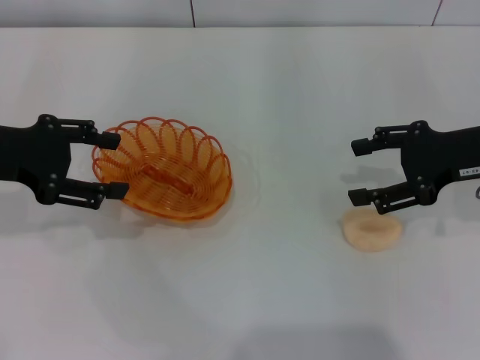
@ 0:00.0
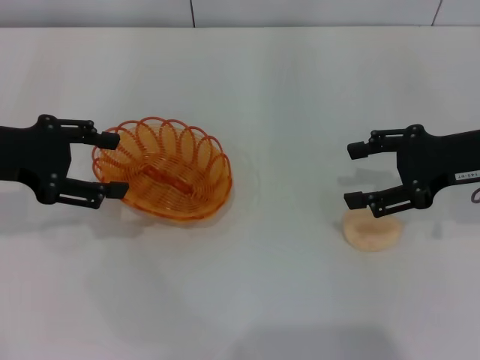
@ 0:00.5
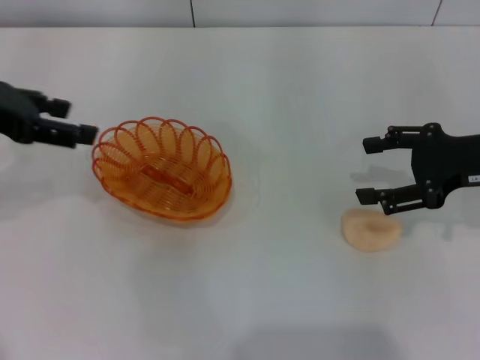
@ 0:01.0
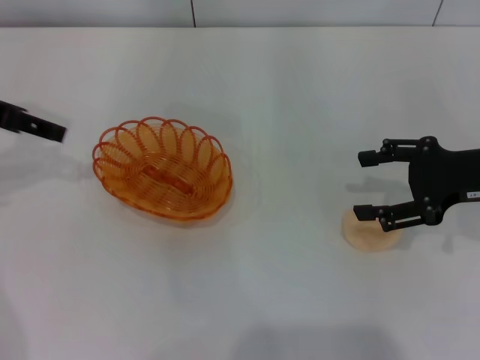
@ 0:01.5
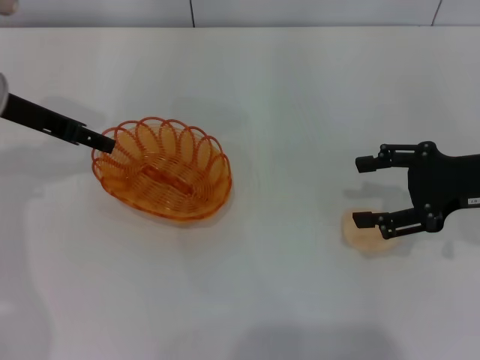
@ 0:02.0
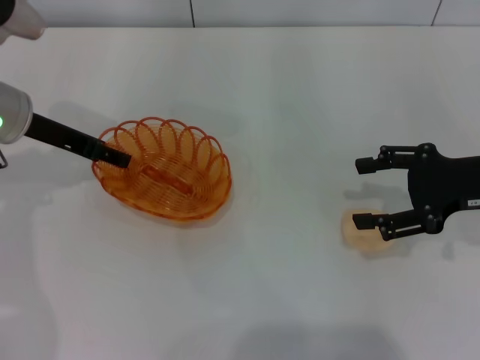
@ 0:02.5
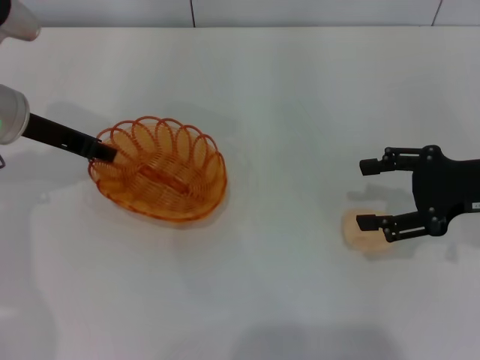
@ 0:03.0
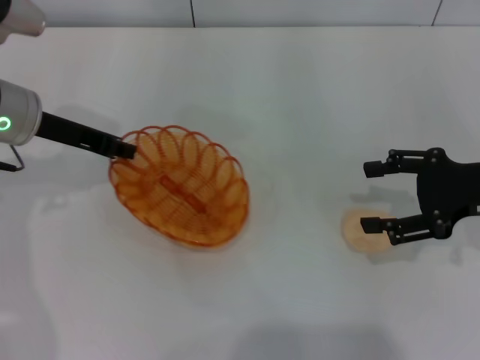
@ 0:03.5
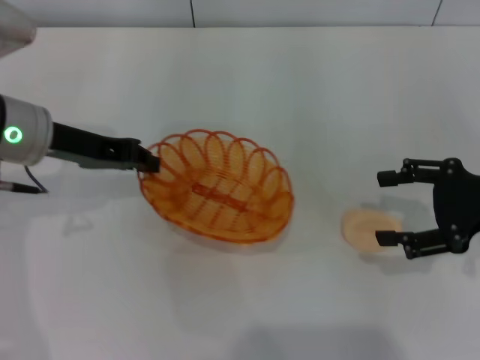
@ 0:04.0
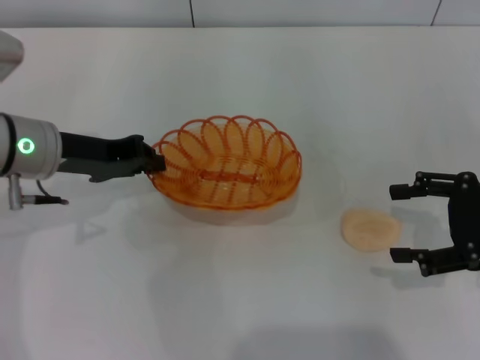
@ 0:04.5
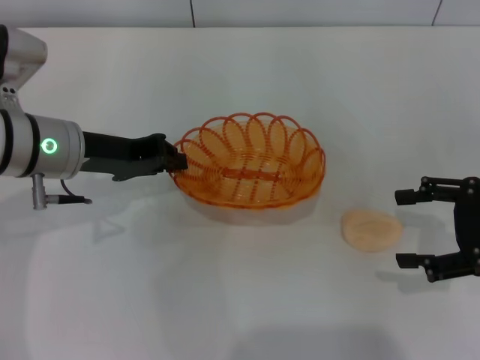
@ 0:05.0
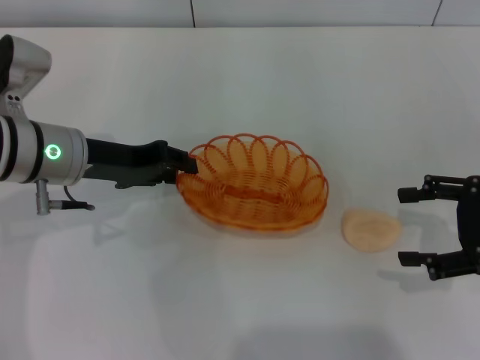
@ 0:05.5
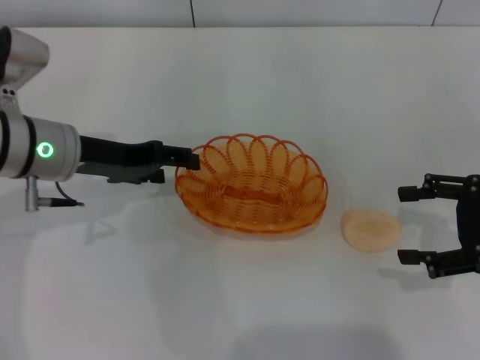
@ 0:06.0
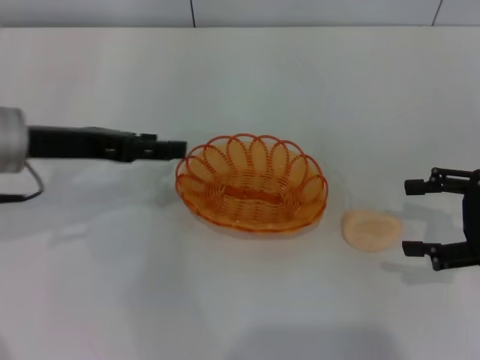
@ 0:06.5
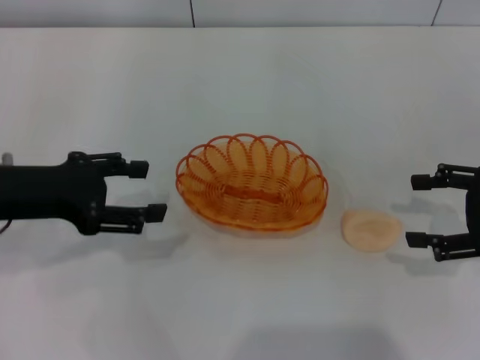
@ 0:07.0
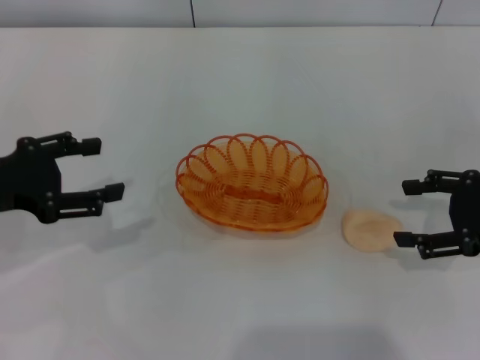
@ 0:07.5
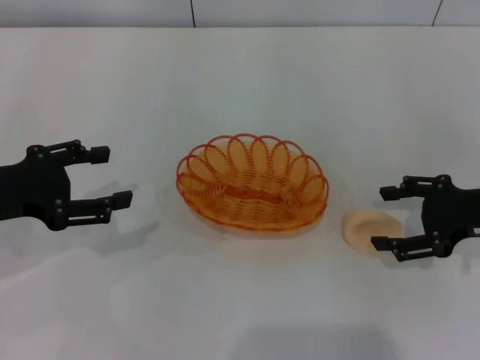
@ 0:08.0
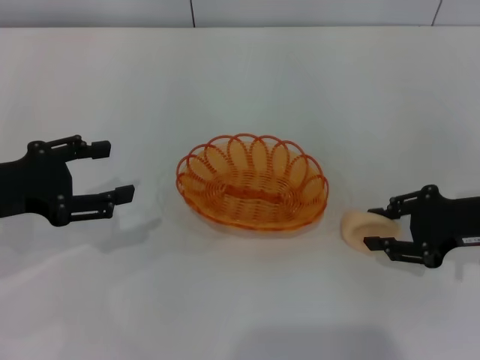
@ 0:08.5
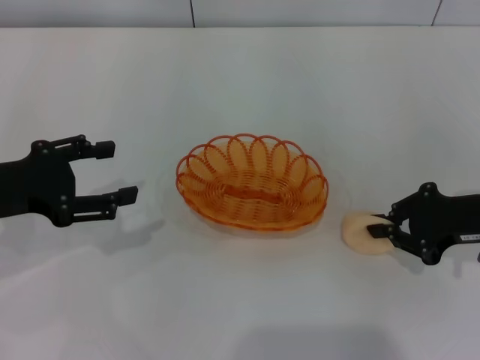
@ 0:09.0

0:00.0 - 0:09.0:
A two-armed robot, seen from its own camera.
Step, 0:00.0 - 0:04.0: Pick up the basket with the left gripper.
Step, 0:04.5 - 0:06.0: Place the basket in the center of view with the left gripper.
0:00.0 - 0:02.0: The left gripper travels forward by roughly 5 cm.
0:02.0 - 0:04.5: The left gripper shifts by roughly 5 cm, and closes, while the right gripper shifts by roughly 5 cm.
0:04.5 - 0:07.0: The left gripper shifts about 5 cm backward, and opens up.
0:07.0 - 0:09.0: The right gripper shifts by some 5 cm, and closes.

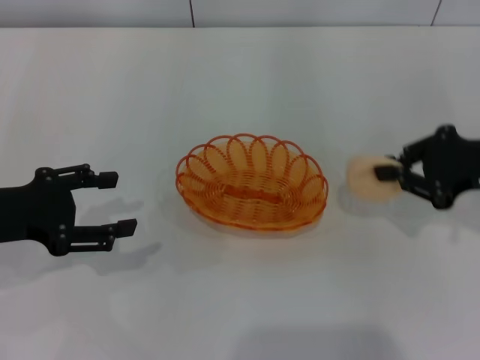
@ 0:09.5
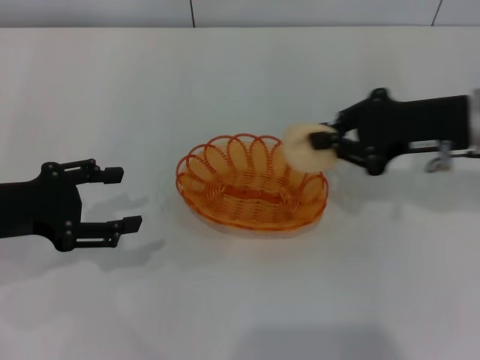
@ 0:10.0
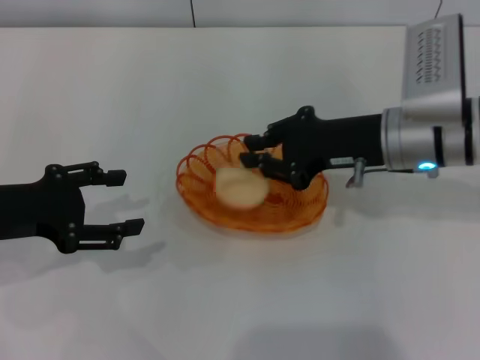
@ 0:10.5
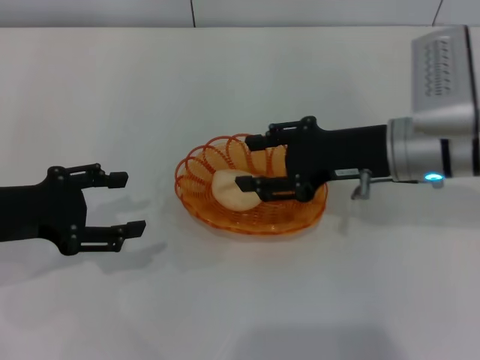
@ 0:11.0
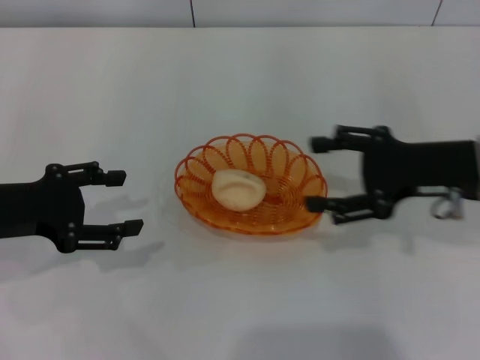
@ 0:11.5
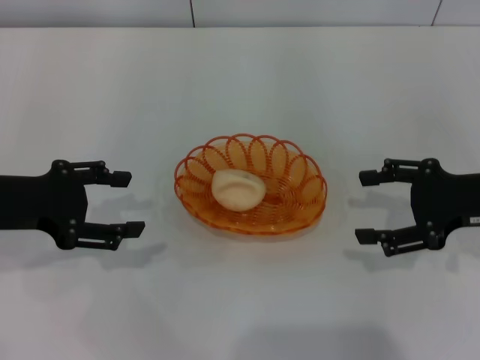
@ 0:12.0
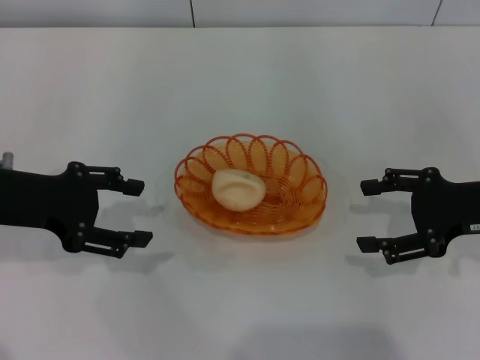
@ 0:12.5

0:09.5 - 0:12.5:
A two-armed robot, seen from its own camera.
Step, 0:10.0 - 0:11.0: Place the egg yolk pastry into the basket with the right gripper.
0:09.5 - 0:11.0: The right gripper shifts some 10 cm to the left, and opens up.
0:11.0 - 0:12.5: The right gripper is displaced to the right by about 10 cm, and opens.

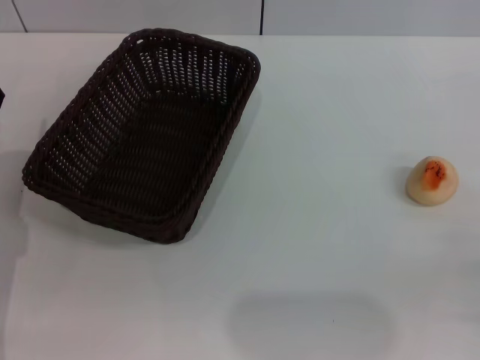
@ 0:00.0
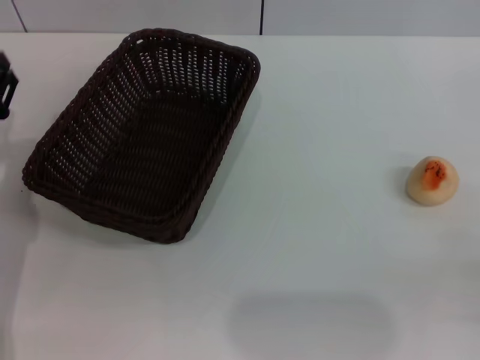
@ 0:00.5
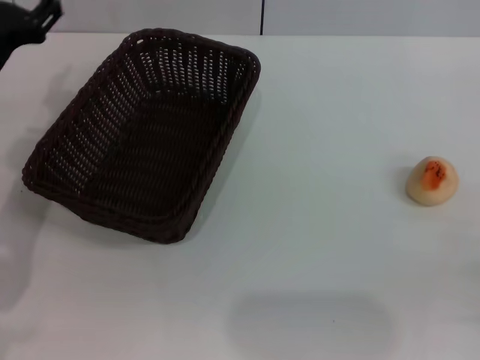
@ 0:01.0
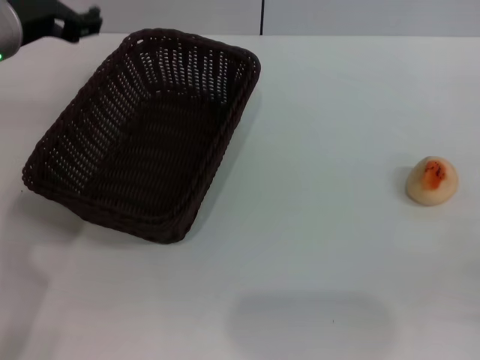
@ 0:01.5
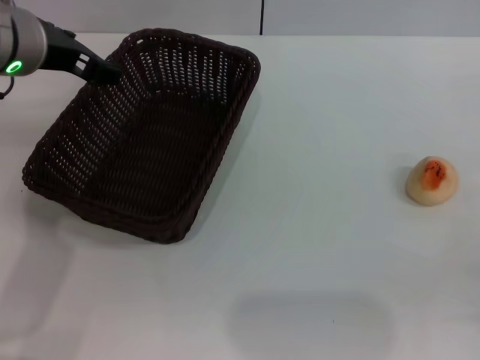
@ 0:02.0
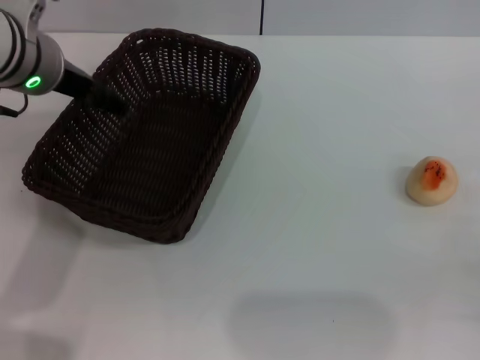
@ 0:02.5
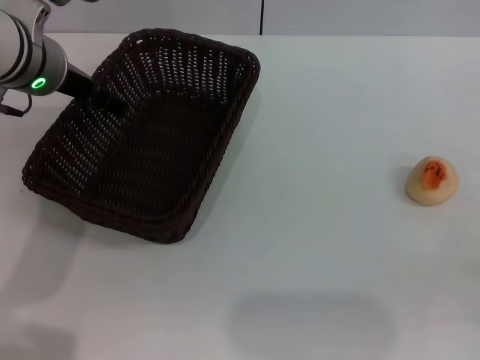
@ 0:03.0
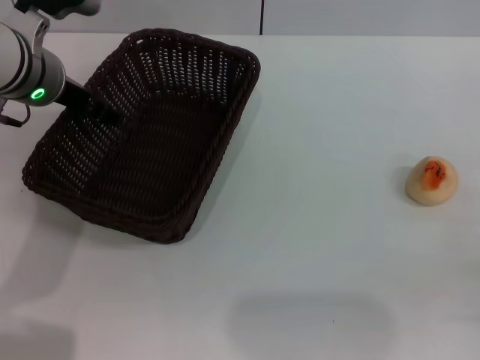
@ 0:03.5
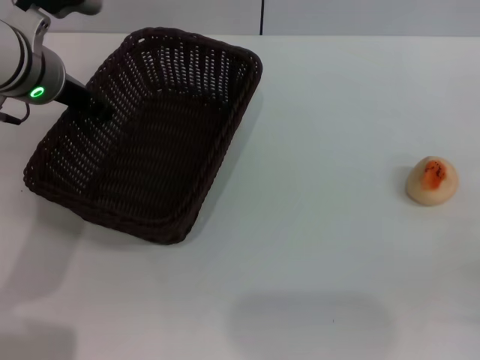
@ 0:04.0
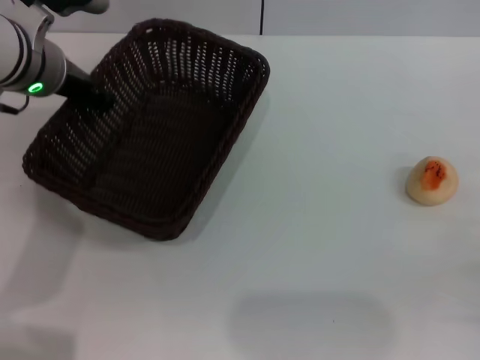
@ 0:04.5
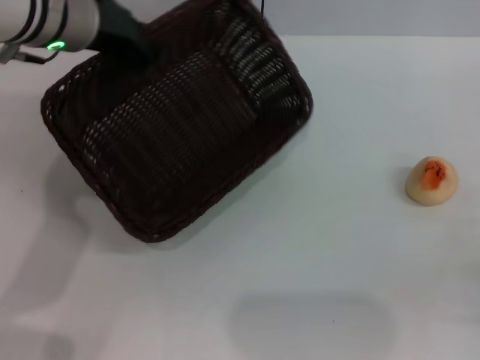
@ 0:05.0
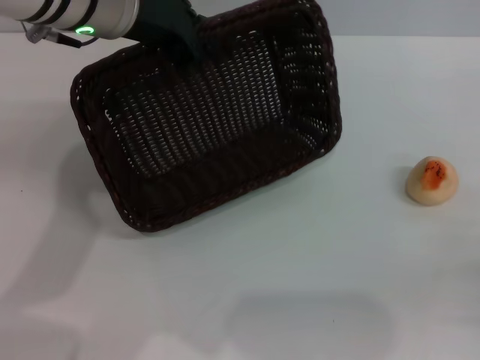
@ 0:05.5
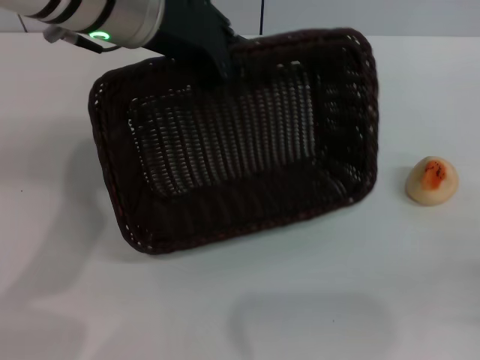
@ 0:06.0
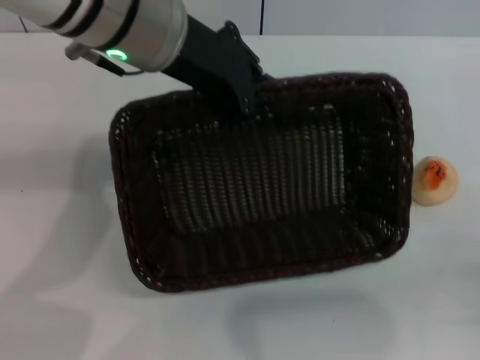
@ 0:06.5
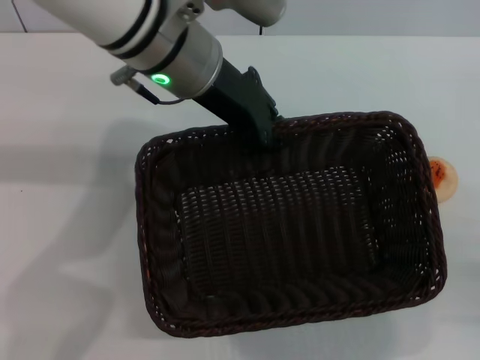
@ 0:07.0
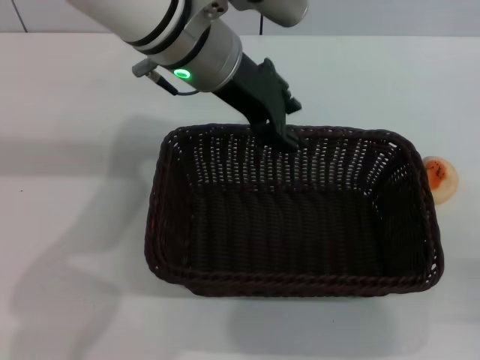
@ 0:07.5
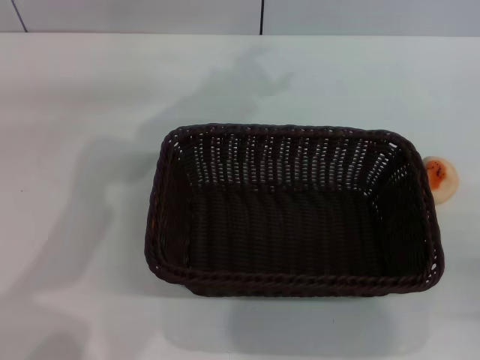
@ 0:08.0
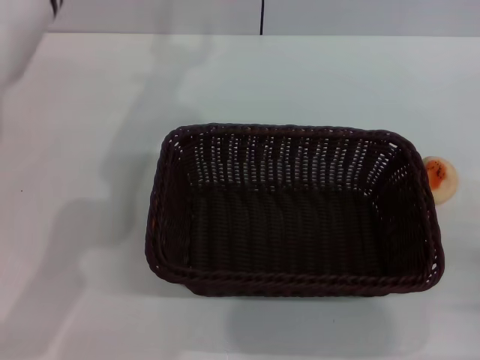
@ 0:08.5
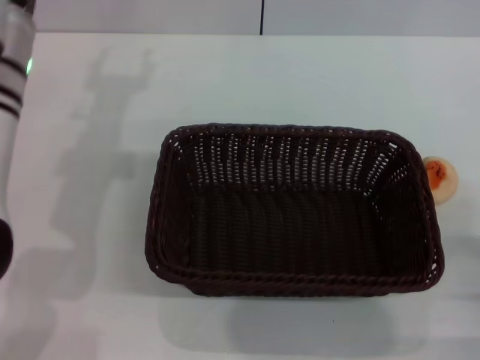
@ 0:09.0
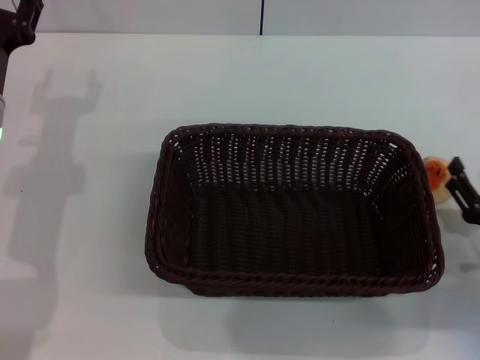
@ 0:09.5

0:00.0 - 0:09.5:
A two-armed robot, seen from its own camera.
Step, 0:00.0 - 0:07.5: Move the basket to the center of view with the left gripper.
0:00.0 - 0:02.0: The left gripper is displaced upward, forward and to the right by roughly 20 cm.
0:02.0 - 0:04.0: The left gripper goes some 5 cm downward.
0:04.0 - 0:05.5: The left gripper shifts approximately 10 cm upward and to the right, and closes.
0:05.5 - 0:07.5: The left gripper shifts roughly 5 cm to the right.
0:07.5 - 0:09.5: The left gripper heads to the left and downward, covering about 25 cm, and opens, while the right gripper goes roughly 10 cm forward.

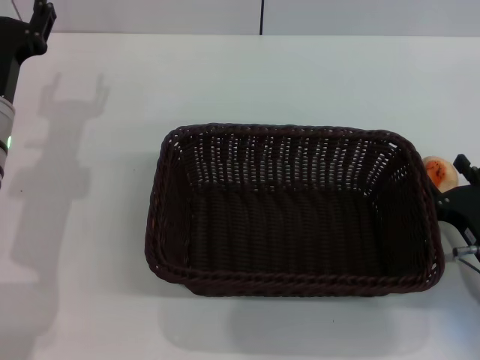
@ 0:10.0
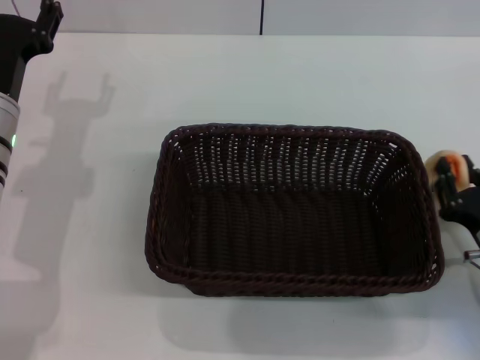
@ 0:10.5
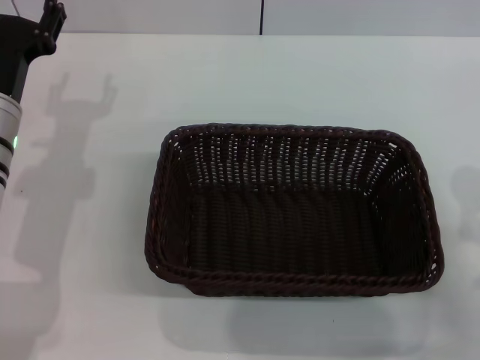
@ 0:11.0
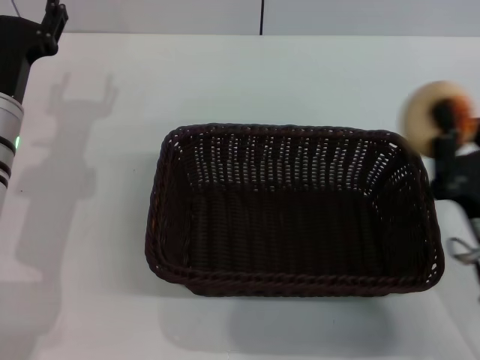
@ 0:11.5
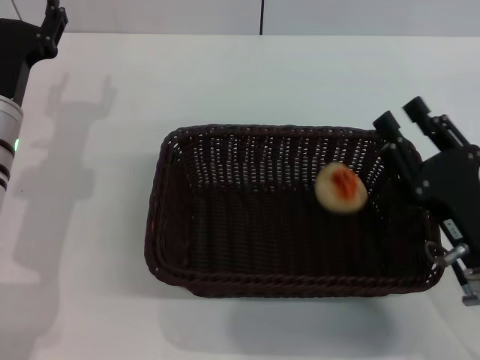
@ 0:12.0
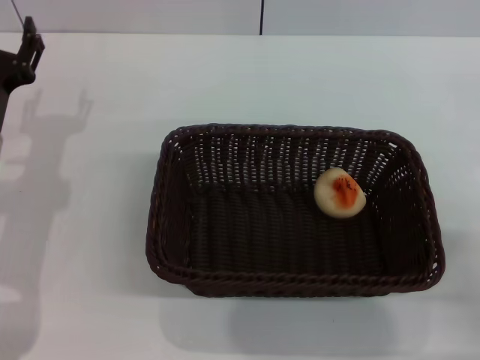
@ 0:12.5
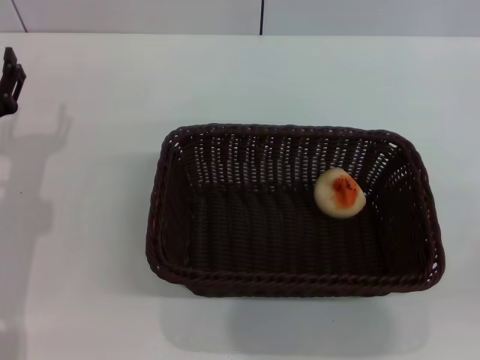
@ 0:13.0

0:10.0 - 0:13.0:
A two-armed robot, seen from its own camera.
Step, 0:11.5 - 0:12.0: Place the egg yolk pastry into the basket with the right gripper.
0:10.0 - 0:11.5: The right gripper is displaced upward by some 5 cm, and closes up.
0:11.5 - 0:13.0: The left gripper changes place by about 5 cm. Meanwhile the right gripper moves to the right and backward, roughly 15 cm, and opens.
